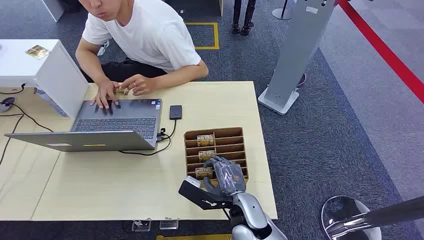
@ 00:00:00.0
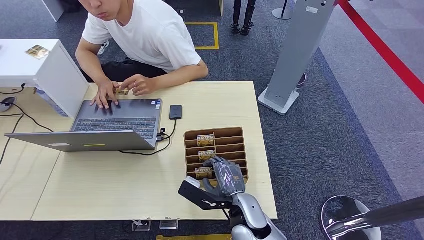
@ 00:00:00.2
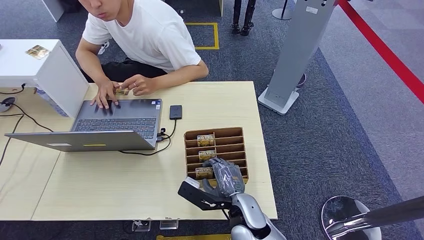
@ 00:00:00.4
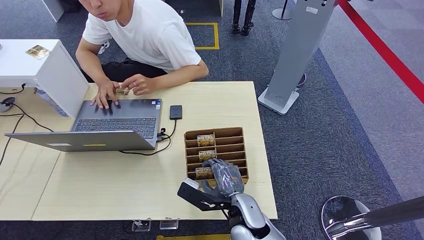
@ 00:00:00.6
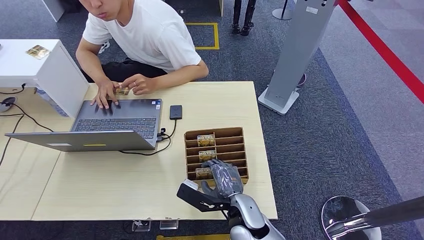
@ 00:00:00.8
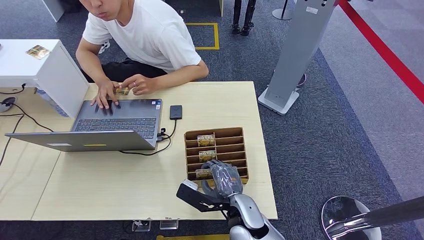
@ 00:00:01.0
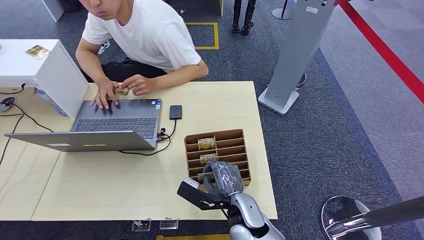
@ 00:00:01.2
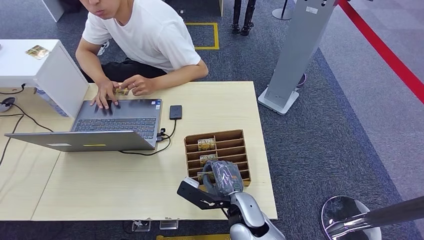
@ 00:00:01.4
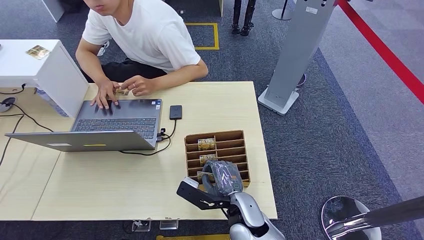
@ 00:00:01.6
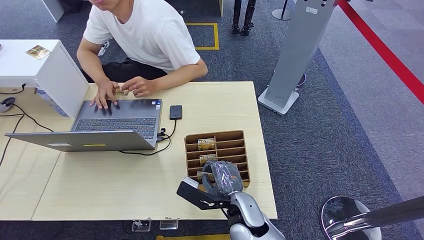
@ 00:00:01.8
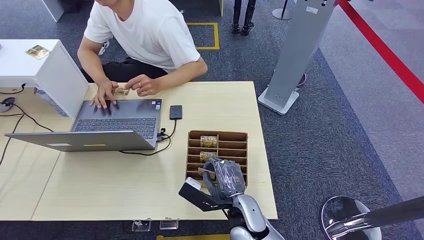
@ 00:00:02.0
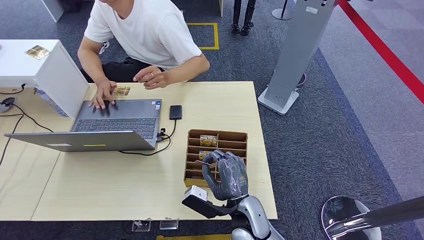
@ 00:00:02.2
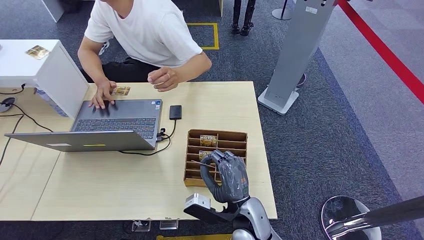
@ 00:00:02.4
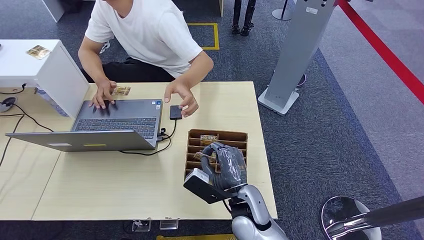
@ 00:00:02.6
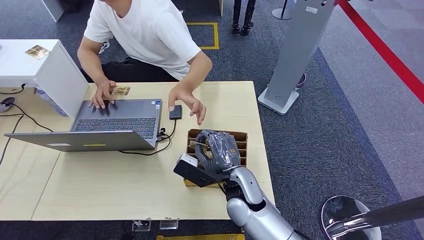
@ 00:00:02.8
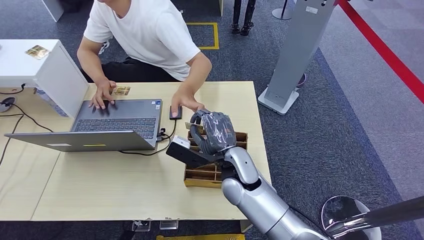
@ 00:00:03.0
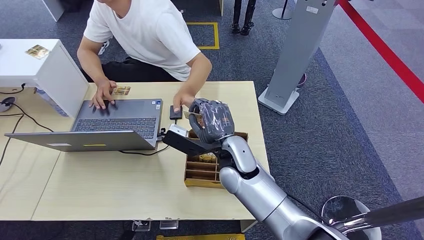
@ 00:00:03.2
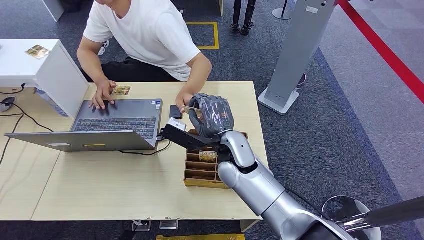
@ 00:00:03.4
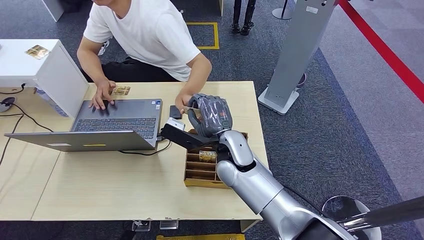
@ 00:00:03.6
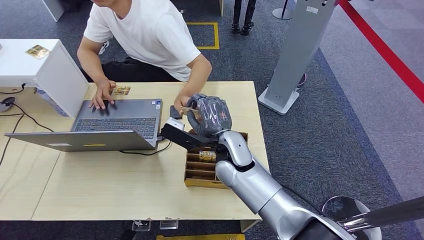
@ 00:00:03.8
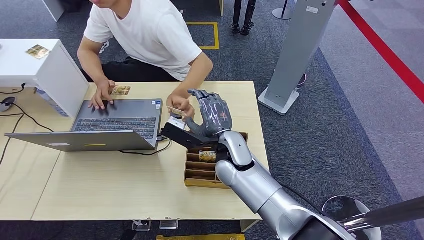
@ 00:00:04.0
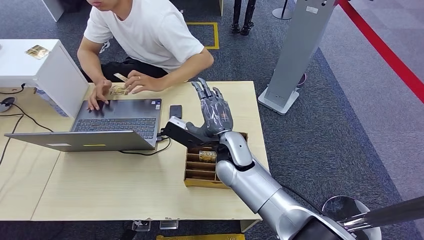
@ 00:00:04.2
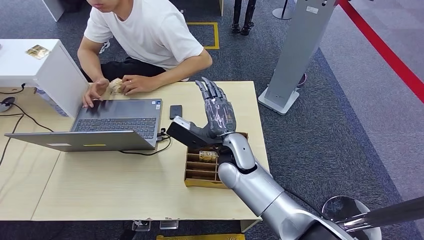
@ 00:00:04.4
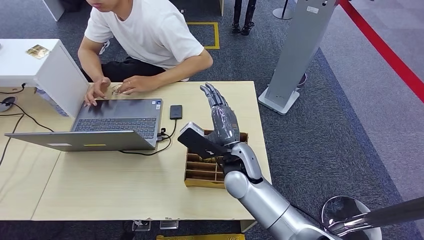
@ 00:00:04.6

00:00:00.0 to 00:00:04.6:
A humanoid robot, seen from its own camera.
Step, 00:00:00.0 to 00:00:02.6: Pick up the key card from the card box.
Step, 00:00:02.8 to 00:00:04.6: Hand the key card to the target.
00:00:01.6 to 00:00:03.0: The right hand heads forward and upward, covering roughly 10 cm.
00:00:03.0 to 00:00:04.6: The hands move only a little.
